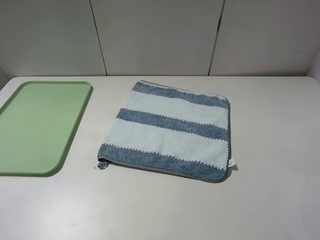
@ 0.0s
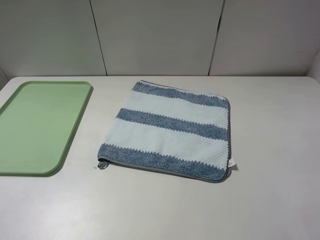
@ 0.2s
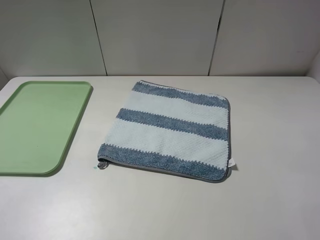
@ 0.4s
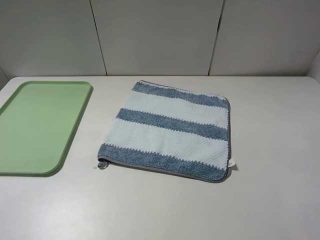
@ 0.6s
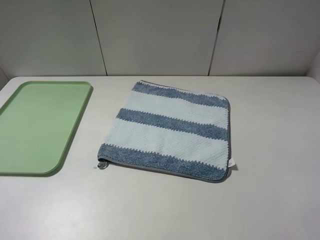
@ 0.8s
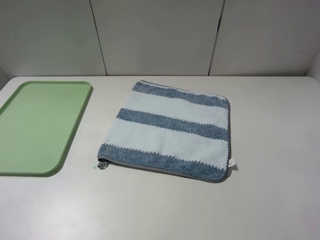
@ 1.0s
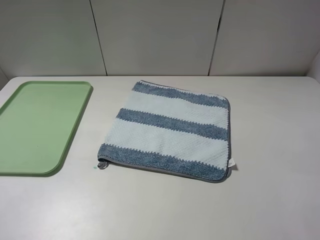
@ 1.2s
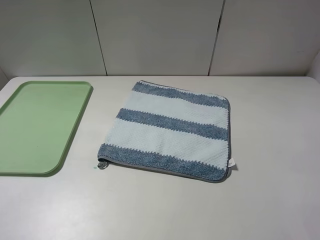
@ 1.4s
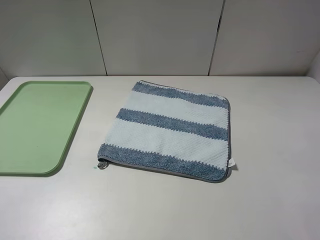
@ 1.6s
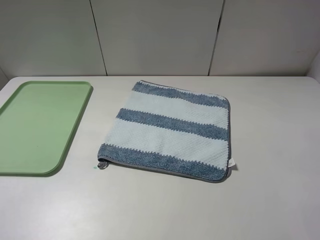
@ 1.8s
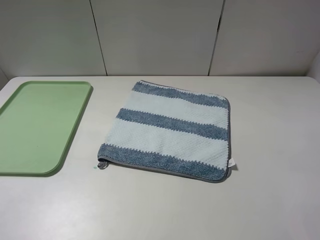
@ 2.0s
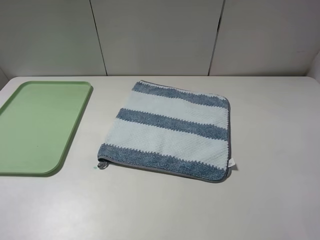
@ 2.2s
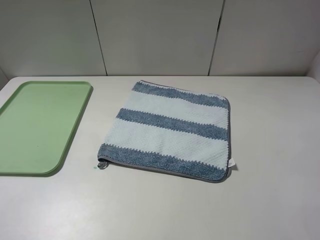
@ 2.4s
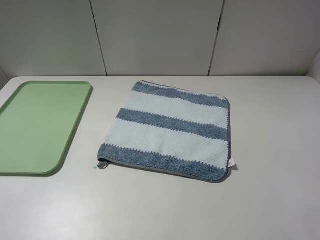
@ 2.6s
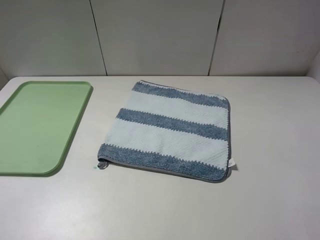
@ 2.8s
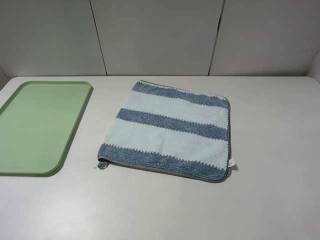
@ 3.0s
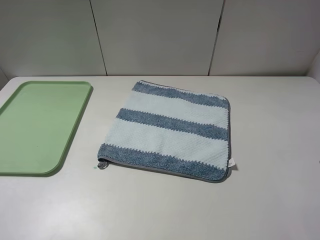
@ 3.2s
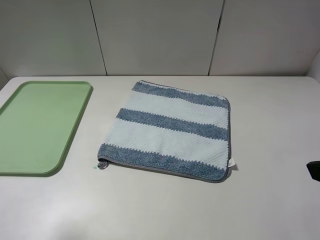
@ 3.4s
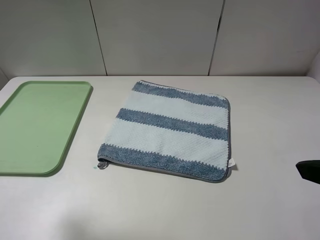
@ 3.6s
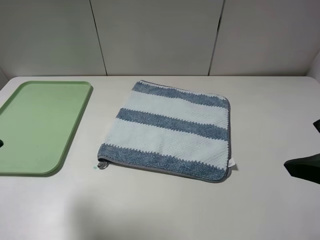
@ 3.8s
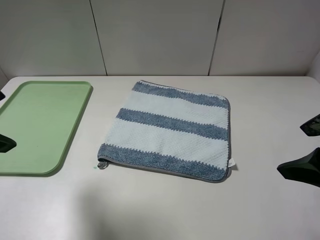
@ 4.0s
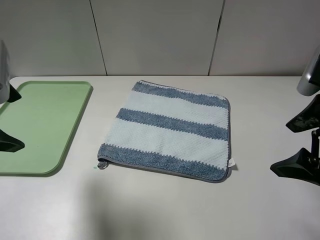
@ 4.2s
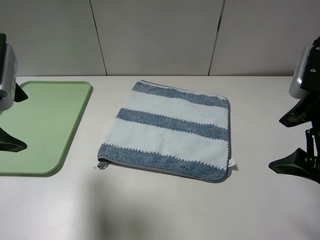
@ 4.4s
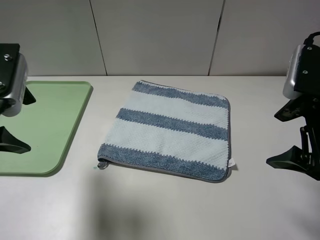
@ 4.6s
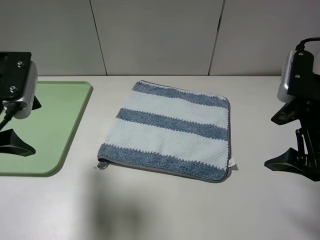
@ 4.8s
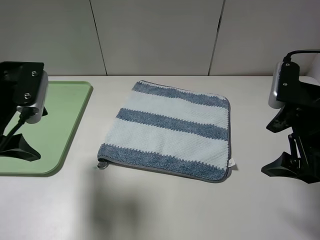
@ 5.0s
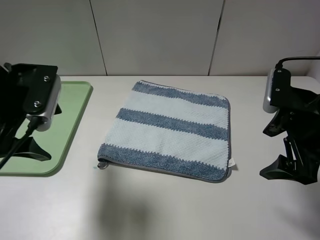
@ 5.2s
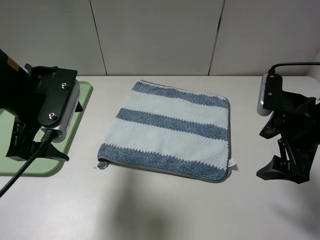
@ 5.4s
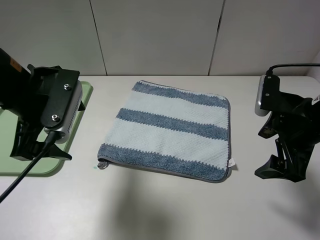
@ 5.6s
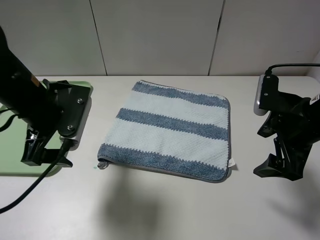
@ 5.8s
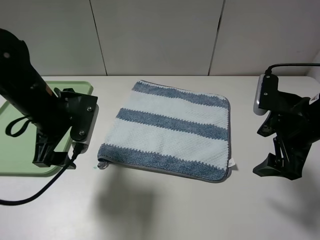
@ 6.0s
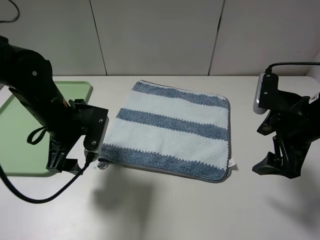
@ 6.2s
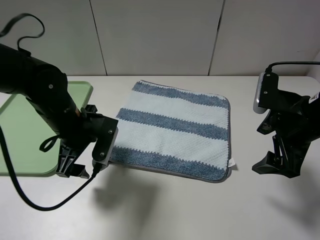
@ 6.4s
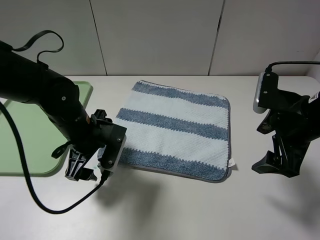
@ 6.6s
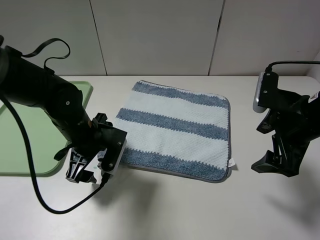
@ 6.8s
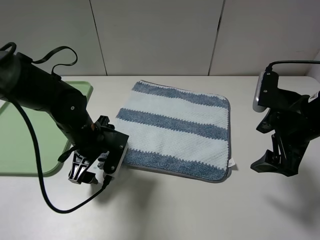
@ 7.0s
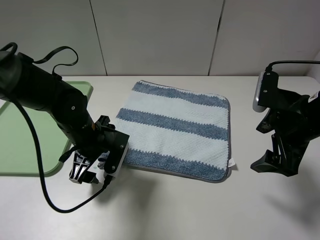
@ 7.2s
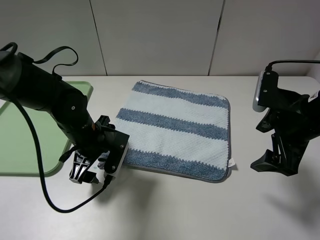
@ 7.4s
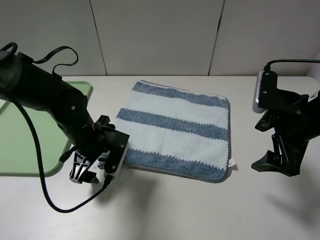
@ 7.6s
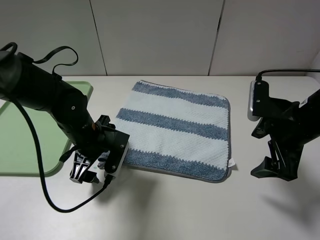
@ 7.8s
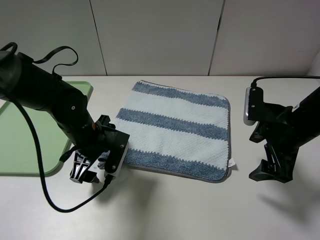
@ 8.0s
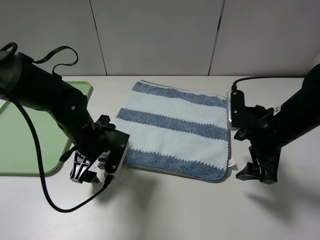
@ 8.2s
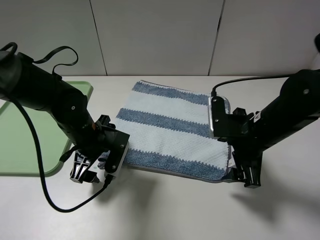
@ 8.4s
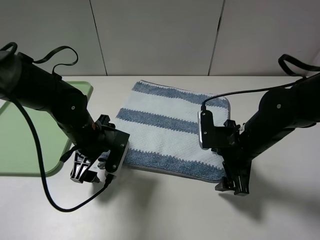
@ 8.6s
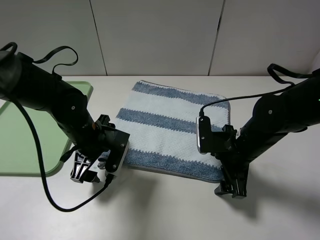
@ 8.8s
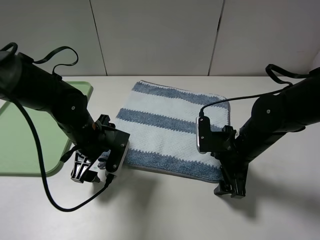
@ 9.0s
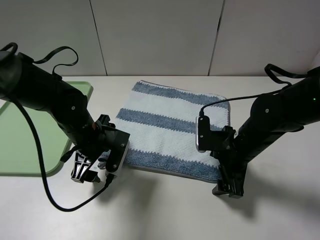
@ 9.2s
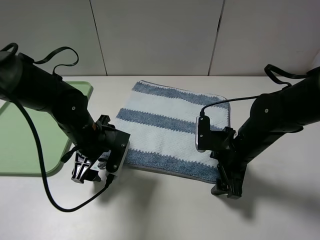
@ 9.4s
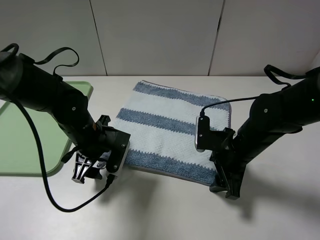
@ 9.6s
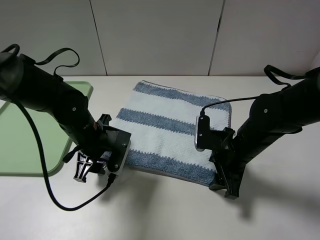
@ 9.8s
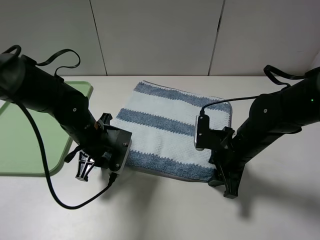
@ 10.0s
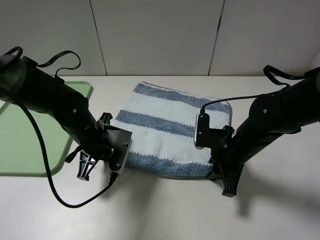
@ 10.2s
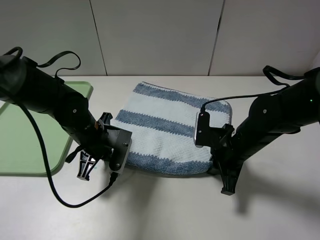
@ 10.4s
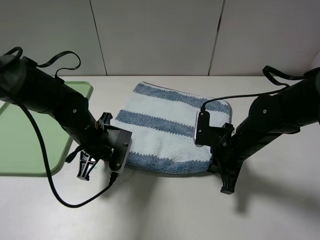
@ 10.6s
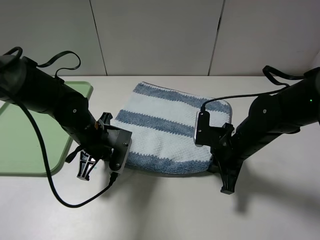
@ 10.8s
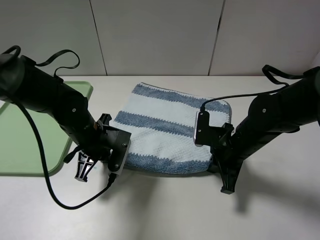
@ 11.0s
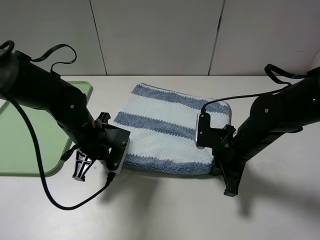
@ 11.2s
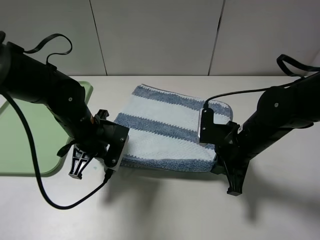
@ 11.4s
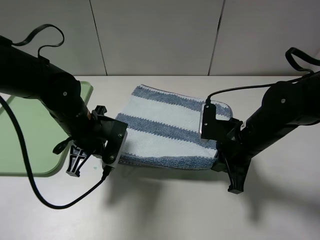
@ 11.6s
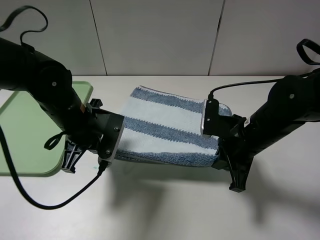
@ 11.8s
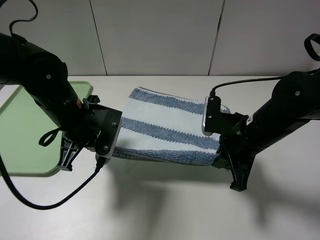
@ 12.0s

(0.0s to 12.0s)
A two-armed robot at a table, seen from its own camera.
Step, 0.0s - 10.8s: Grasp the blue white towel with the left gripper.
0.0s - 1.6s: Both grippers stay put.
3.0s - 4.4s: The right gripper heads forward and downward, covering roughly 15 cm. The left gripper moves forward, about 15 cm.
4.4s - 6.0s: The left gripper heads downward, to the right and forward, covering roughly 15 cm. Meanwhile the right gripper heads downward, covering some 5 cm.
6.0s - 7.6s: The left gripper heads downward, covering some 10 cm.
7.6s - 9.0s: The right gripper shifts roughly 15 cm downward and to the left.
9.0s - 10.4s: The left gripper closes. Meanwhile the right gripper closes up.
10.4s - 12.0s: The grippers both shift upward by approximately 5 cm.

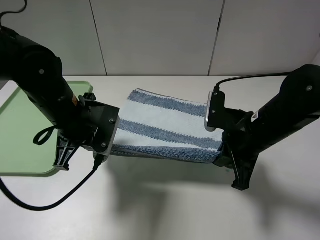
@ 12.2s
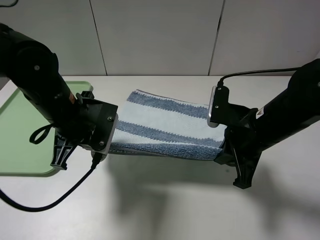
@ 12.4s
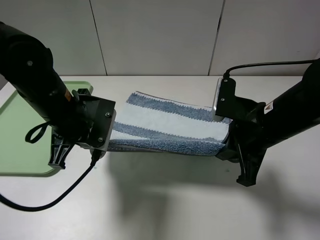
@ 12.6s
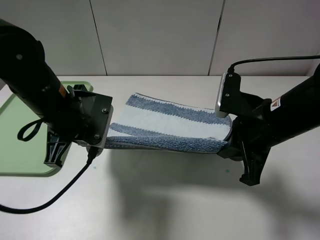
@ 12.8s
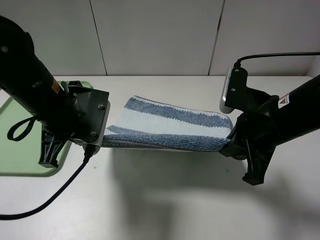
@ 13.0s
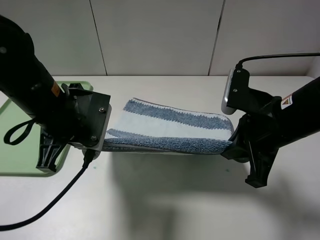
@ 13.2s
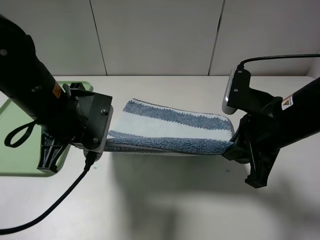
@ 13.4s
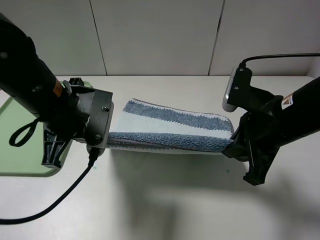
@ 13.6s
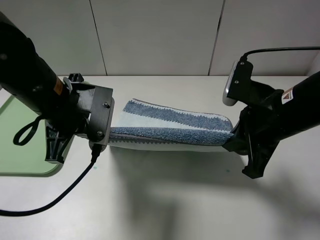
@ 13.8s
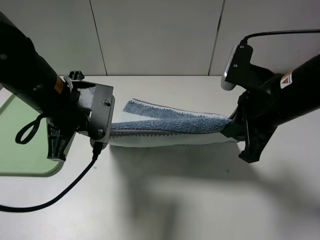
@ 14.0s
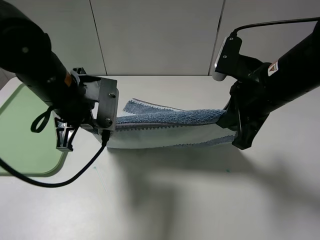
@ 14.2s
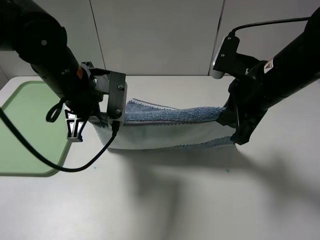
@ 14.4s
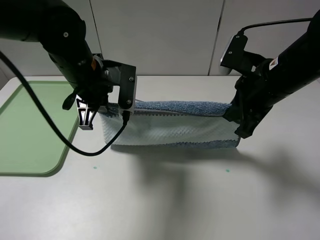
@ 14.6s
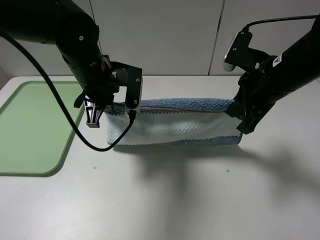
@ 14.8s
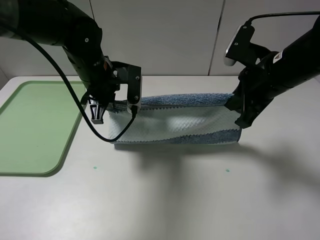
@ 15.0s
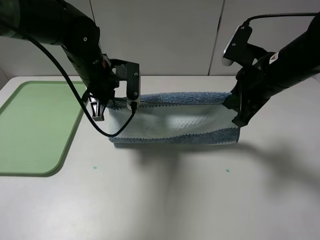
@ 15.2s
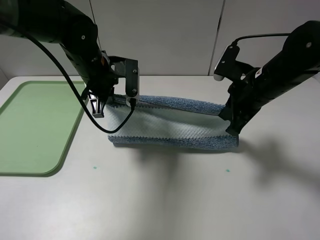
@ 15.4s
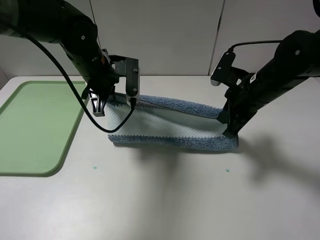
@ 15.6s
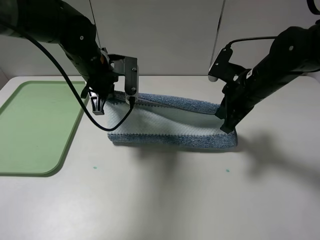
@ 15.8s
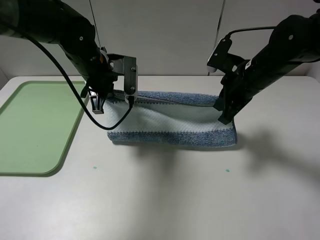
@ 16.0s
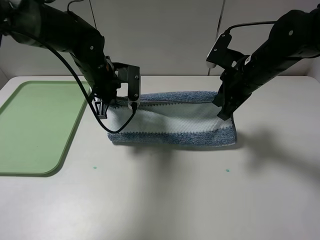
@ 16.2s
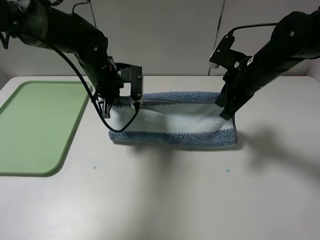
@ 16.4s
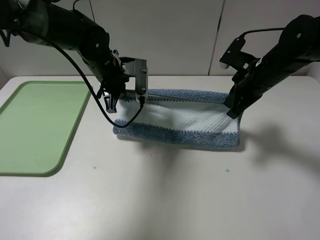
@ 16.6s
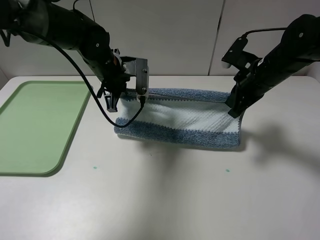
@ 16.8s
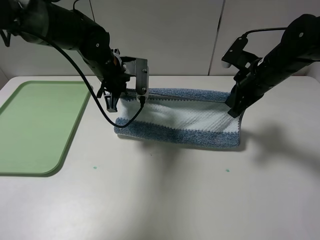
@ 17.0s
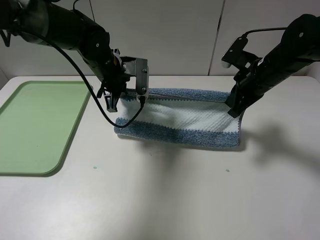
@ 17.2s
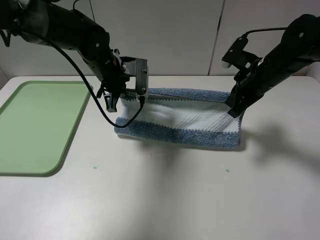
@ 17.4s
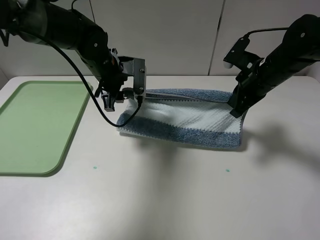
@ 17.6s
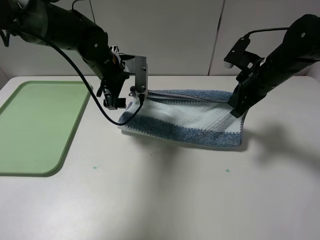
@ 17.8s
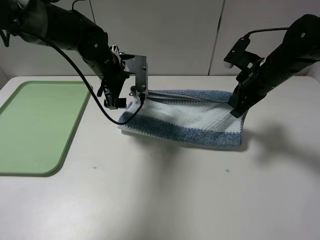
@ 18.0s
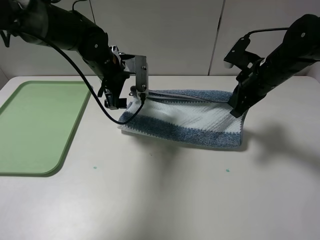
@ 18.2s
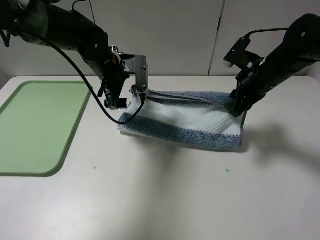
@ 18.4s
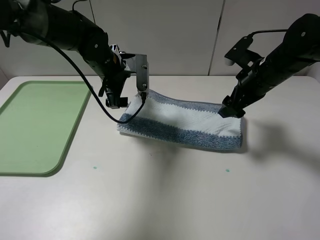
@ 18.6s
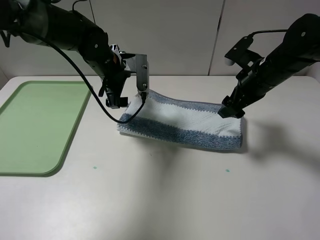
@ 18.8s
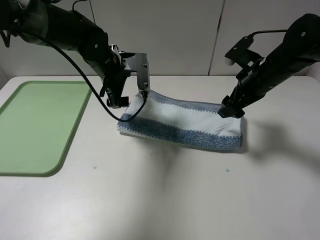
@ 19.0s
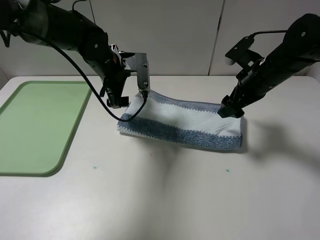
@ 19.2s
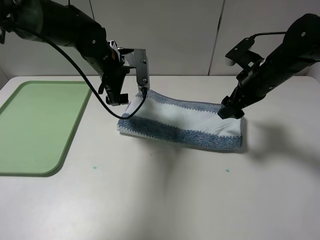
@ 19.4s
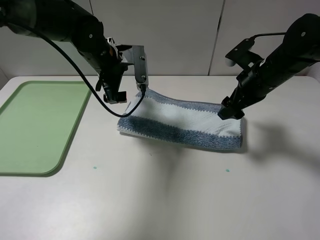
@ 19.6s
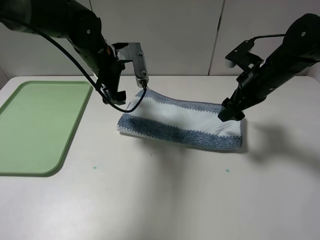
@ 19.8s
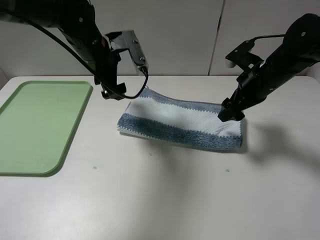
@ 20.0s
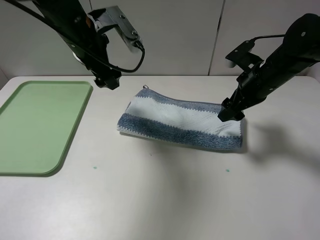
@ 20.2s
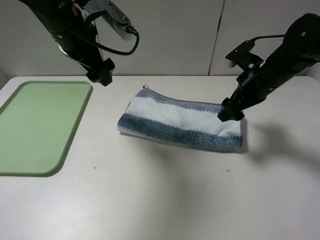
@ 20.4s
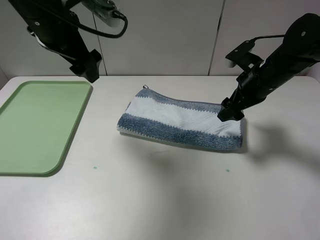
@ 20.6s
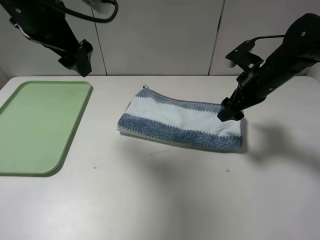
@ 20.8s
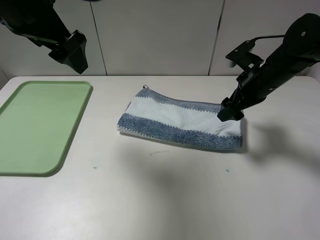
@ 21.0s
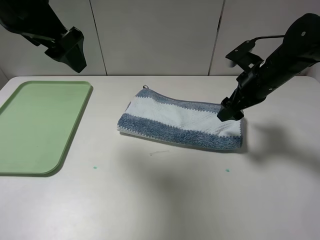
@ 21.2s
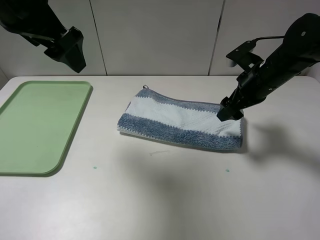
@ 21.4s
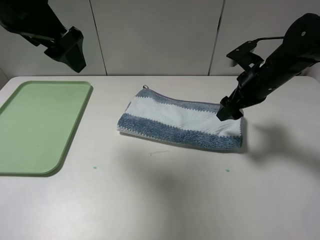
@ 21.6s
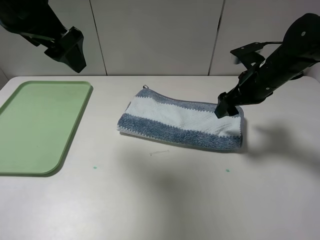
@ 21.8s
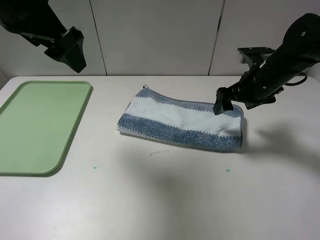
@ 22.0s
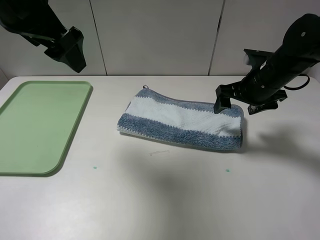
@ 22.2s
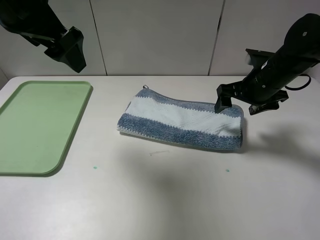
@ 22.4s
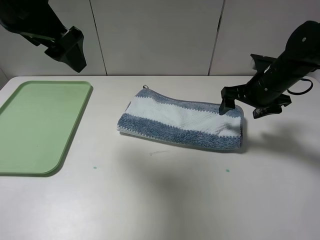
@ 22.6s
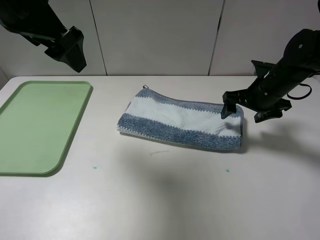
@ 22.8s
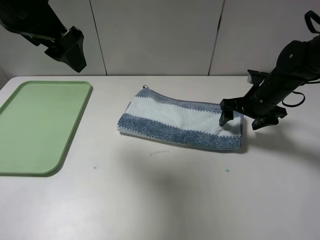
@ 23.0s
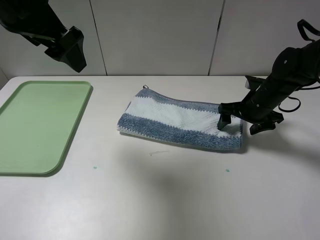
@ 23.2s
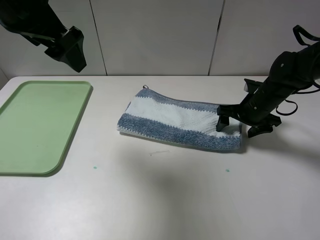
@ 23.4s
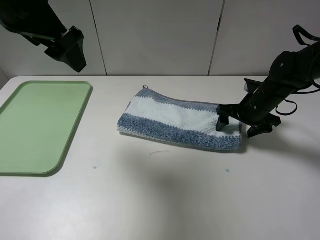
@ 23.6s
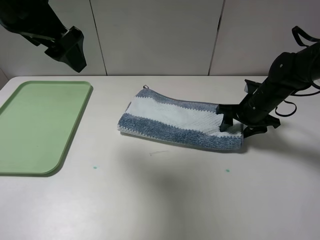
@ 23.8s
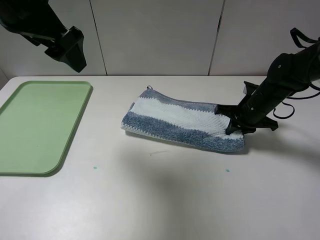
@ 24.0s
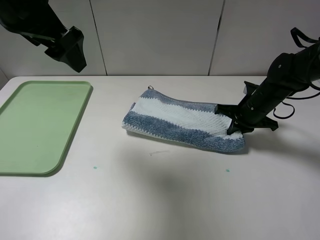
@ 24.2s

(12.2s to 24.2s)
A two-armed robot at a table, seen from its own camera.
Step, 12.2s - 19.4s: Fold the blue white towel upwards with the left gripper.
Step, 19.6s - 24.0s: Grasp the blue white towel with the right gripper.
12.2s - 13.8s: The right gripper moves upward, approximately 5 cm.
13.8s - 15.2s: The left gripper travels forward by some 10 cm. The right gripper travels forward by roughly 10 cm.
15.2s - 16.6s: The right gripper goes about 5 cm forward.
16.6s - 18.2s: The left gripper opens.
18.2s - 19.8s: The right gripper opens its fingers.
19.8s - 21.2s: The left gripper goes roughly 20 cm upward, backward and to the left.
22.6s - 24.2s: The right gripper travels downward by roughly 5 cm, and closes.
